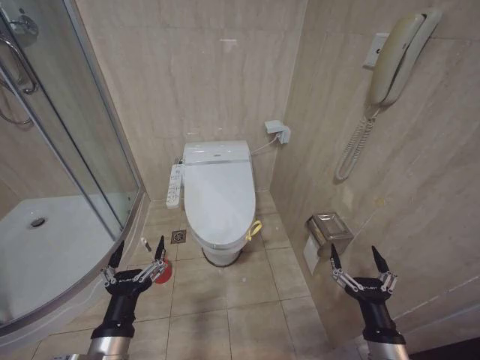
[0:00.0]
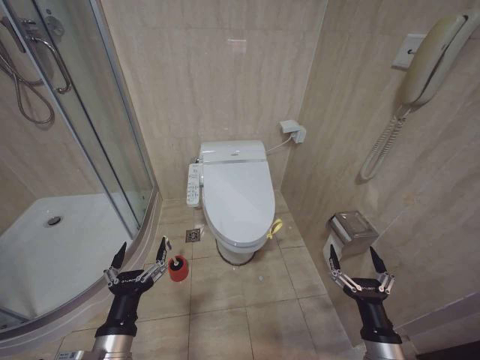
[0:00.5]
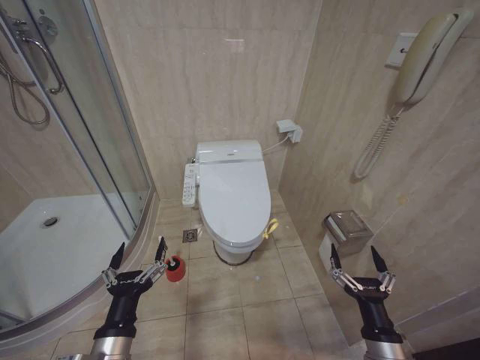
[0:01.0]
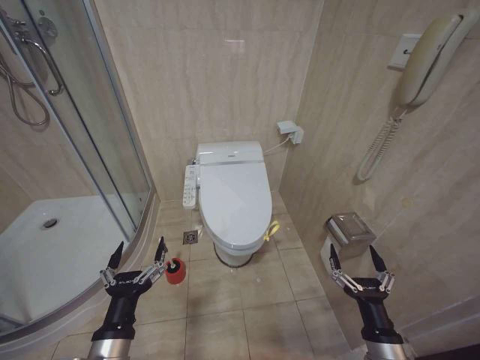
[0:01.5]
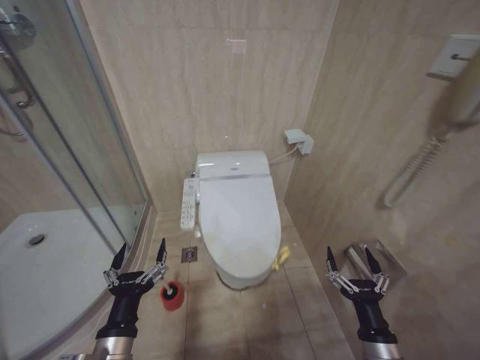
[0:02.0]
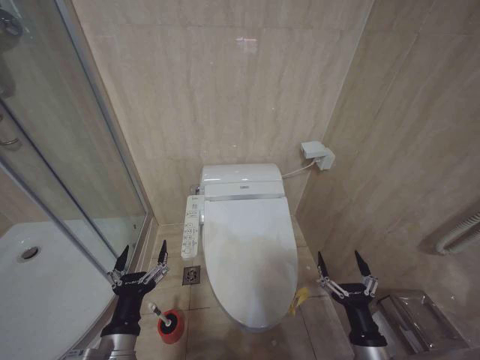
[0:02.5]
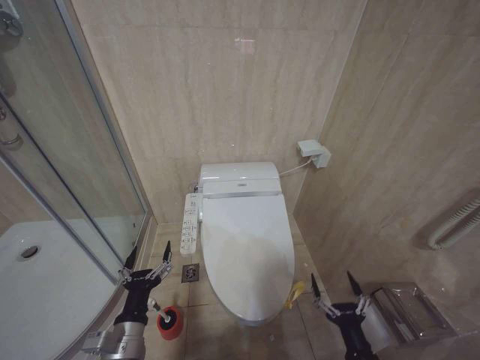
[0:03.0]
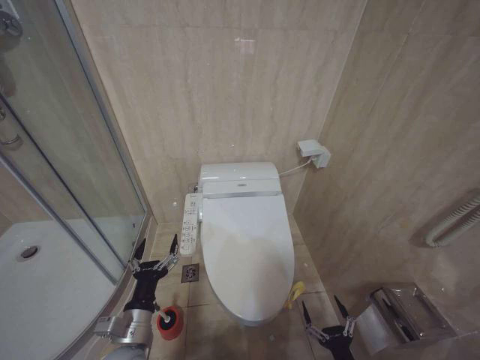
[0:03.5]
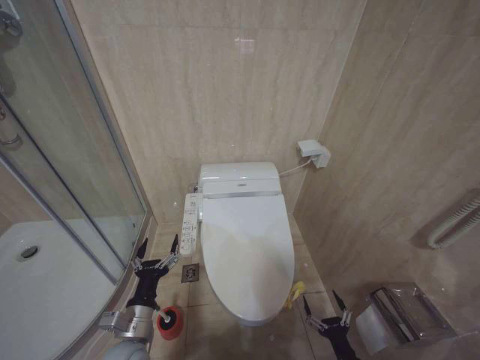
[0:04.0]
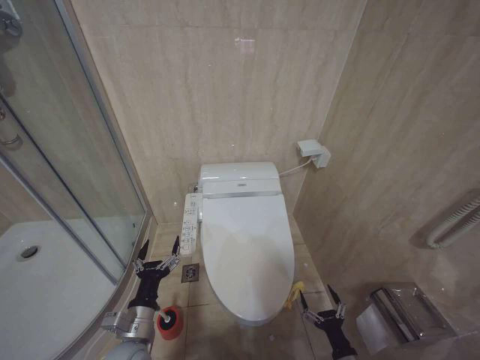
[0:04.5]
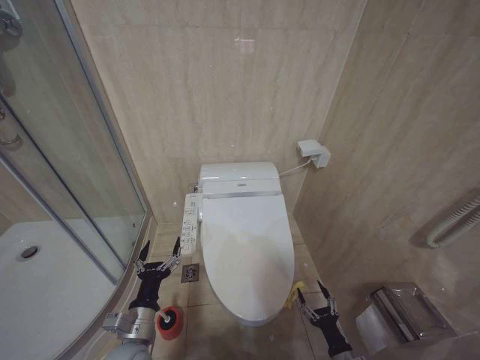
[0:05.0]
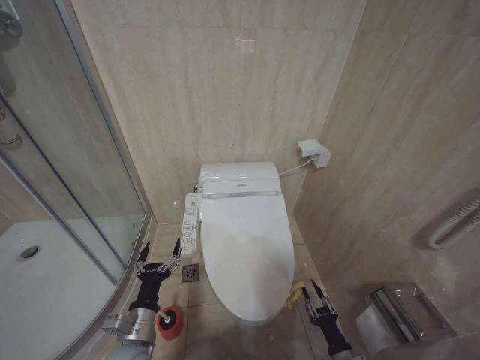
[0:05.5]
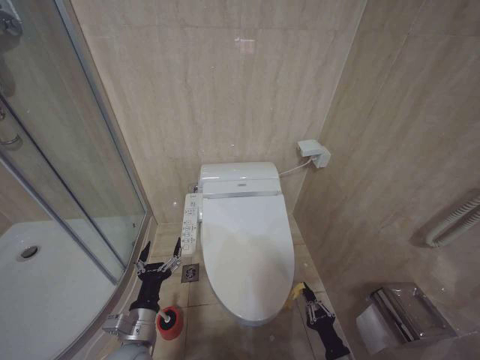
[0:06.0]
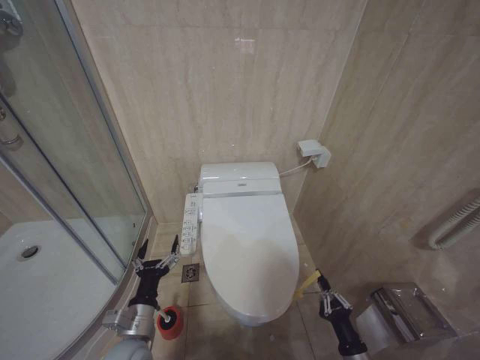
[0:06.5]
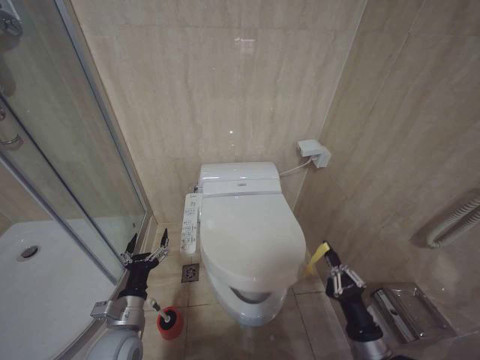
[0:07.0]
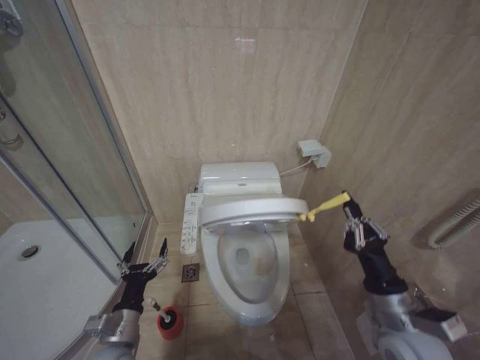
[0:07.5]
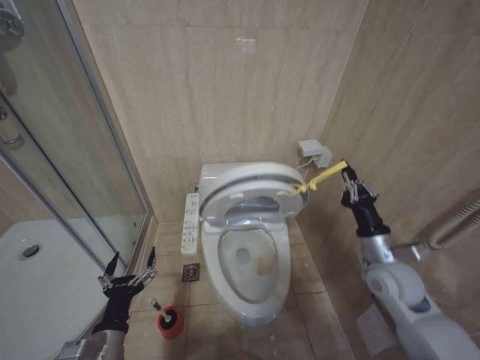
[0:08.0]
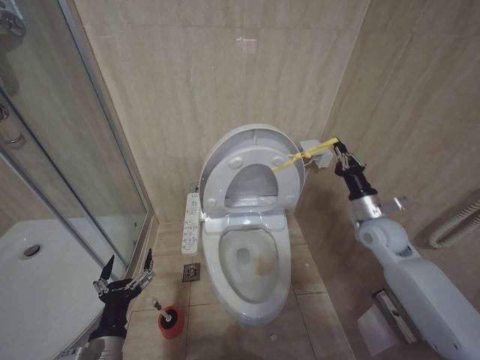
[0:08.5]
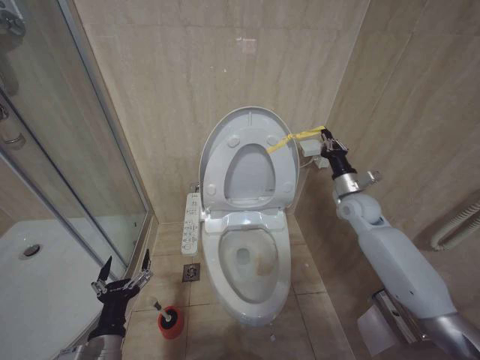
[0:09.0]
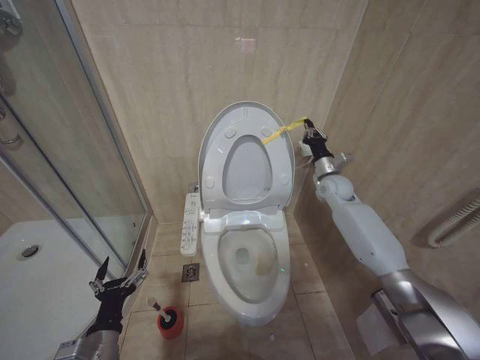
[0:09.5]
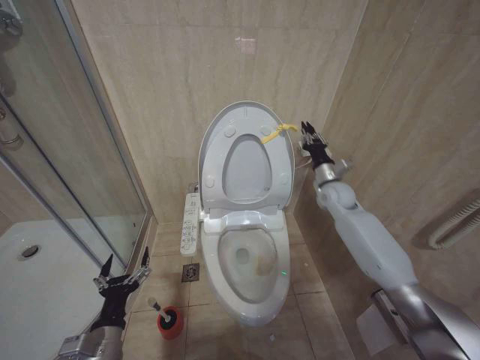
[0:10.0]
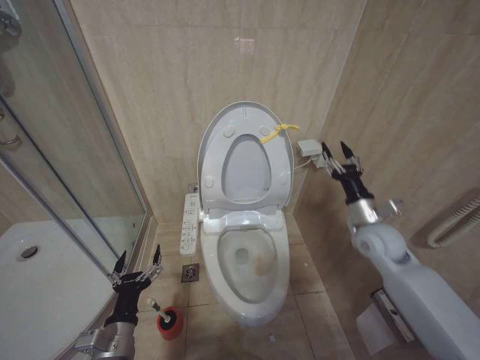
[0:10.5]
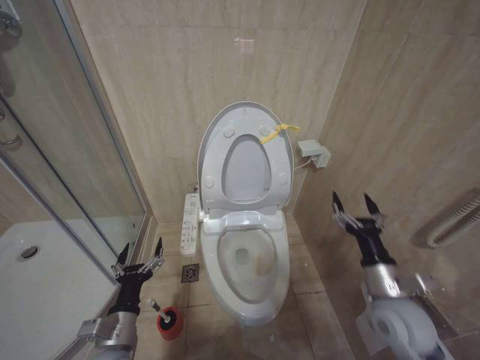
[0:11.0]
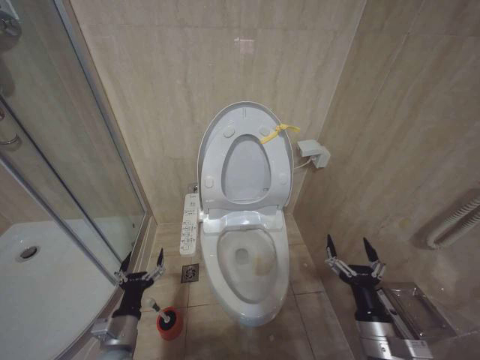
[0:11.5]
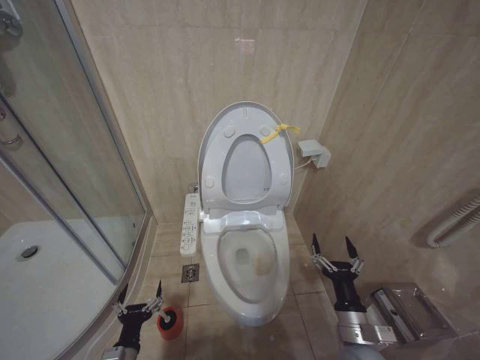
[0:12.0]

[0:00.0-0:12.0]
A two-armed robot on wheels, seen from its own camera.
Task of the whole recording: Open the toilet lid, clean the toilet bowl with a toilet brush, close the toilet lid, and flush.
0:02.0 to 0:04.0: The right gripper travels downward by about 20 cm. Meanwhile the left gripper heads forward and downward, covering approximately 10 cm.
0:04.0 to 0:06.0: The right gripper closes.
0:06.0 to 0:08.0: The right gripper goes some 35 cm upward and forward. Meanwhile the left gripper moves approximately 5 cm.
0:08.0 to 0:10.0: The right gripper travels forward by roughly 25 cm.
0:10.0 to 0:12.0: The left gripper heads downward, covering approximately 10 cm. Meanwhile the right gripper moves backward and downward, about 40 cm, and opens up.

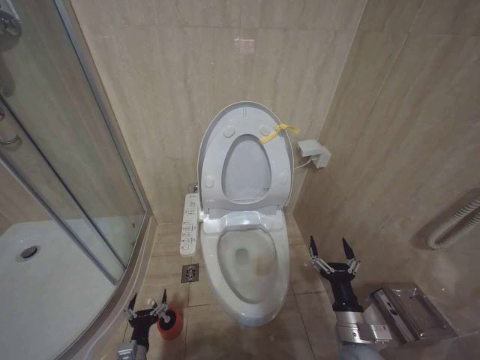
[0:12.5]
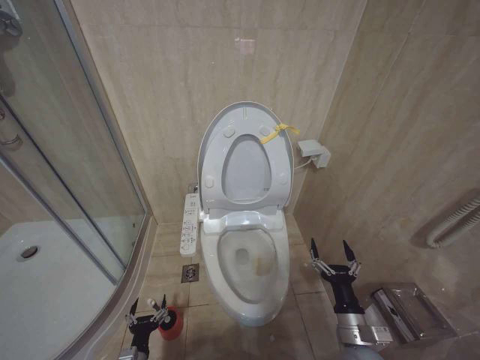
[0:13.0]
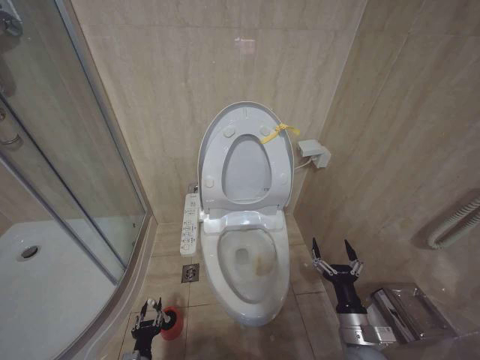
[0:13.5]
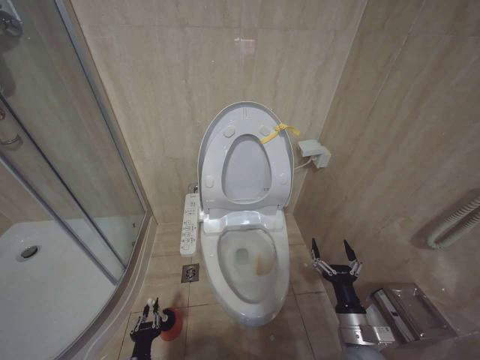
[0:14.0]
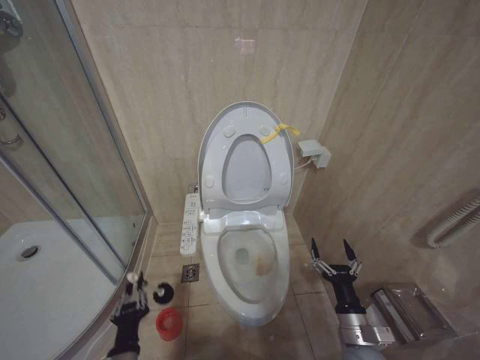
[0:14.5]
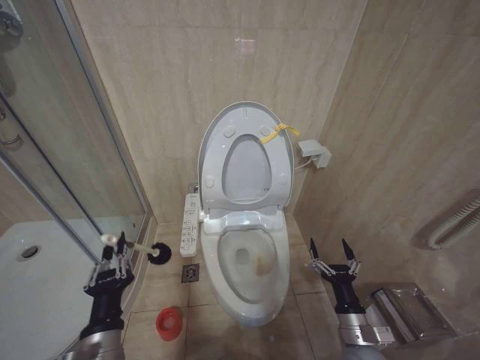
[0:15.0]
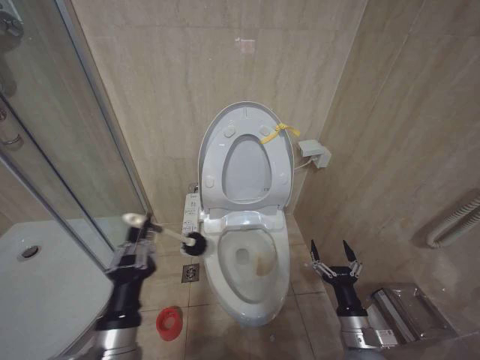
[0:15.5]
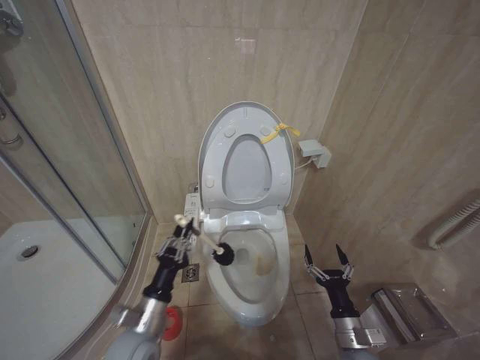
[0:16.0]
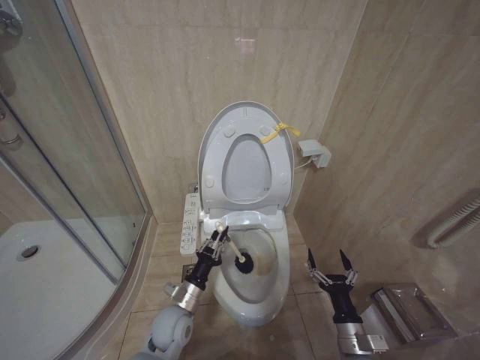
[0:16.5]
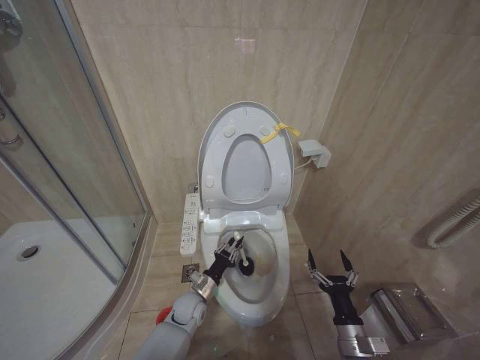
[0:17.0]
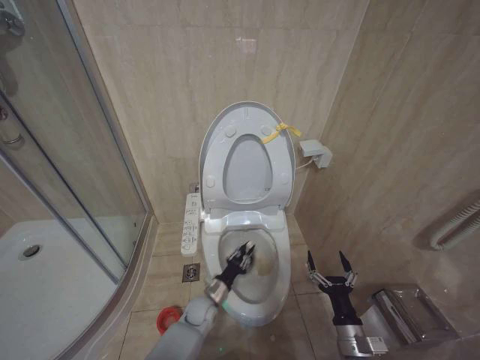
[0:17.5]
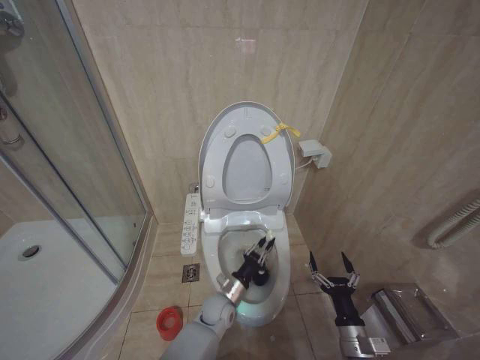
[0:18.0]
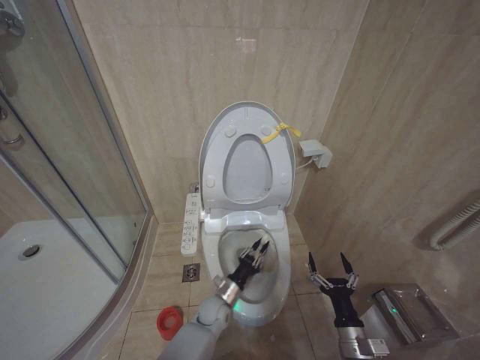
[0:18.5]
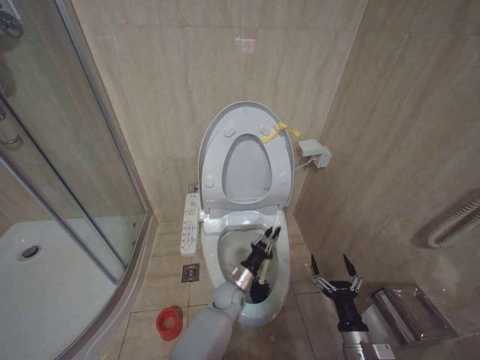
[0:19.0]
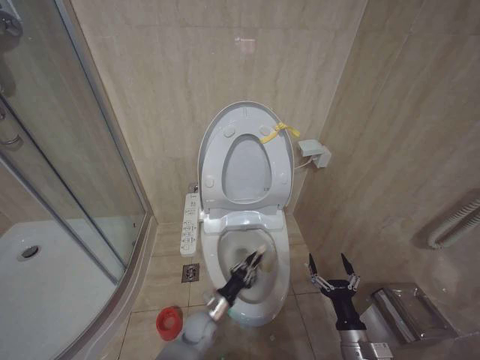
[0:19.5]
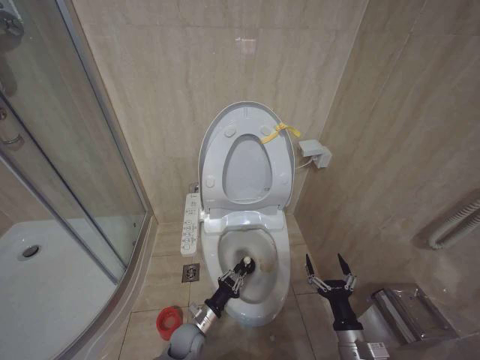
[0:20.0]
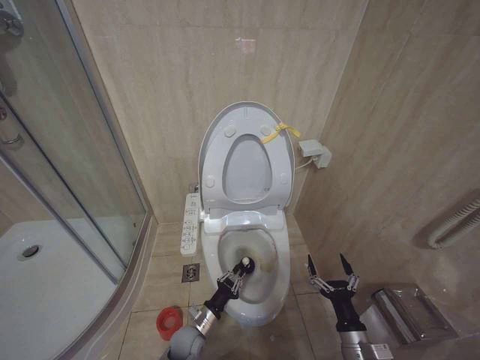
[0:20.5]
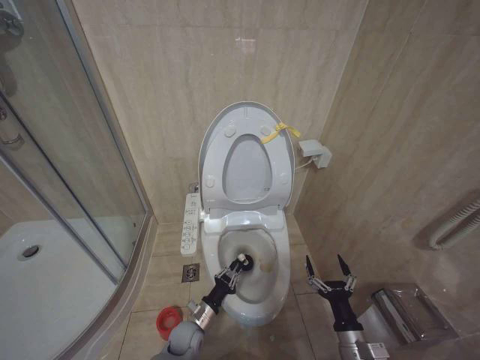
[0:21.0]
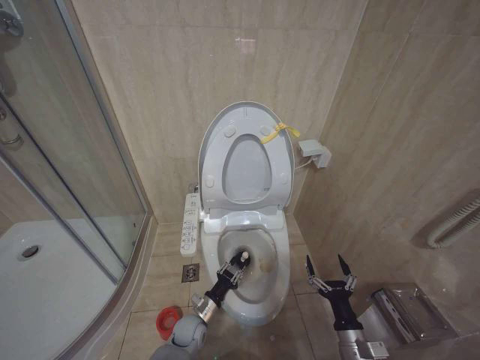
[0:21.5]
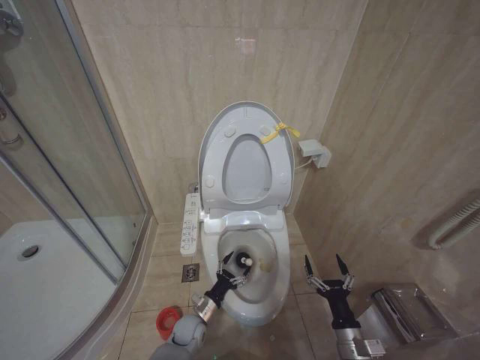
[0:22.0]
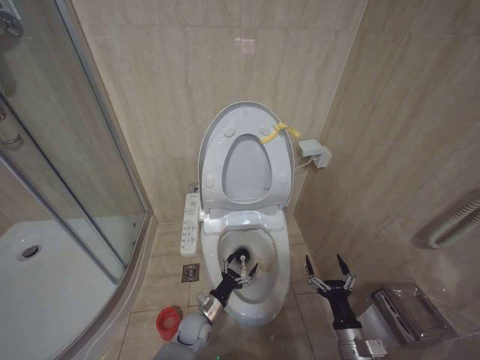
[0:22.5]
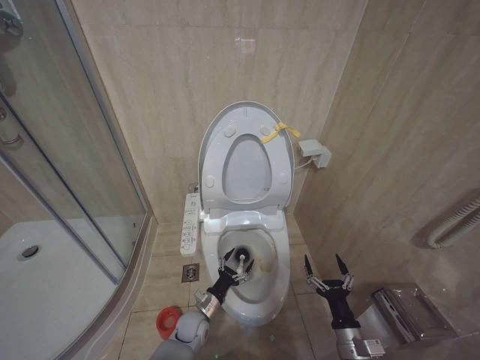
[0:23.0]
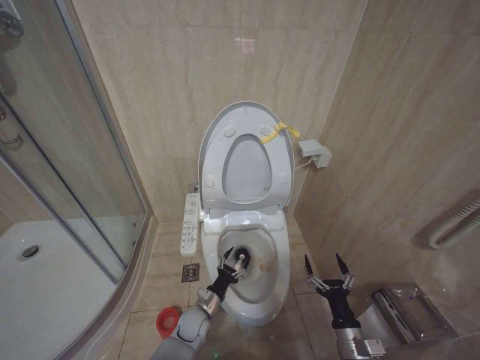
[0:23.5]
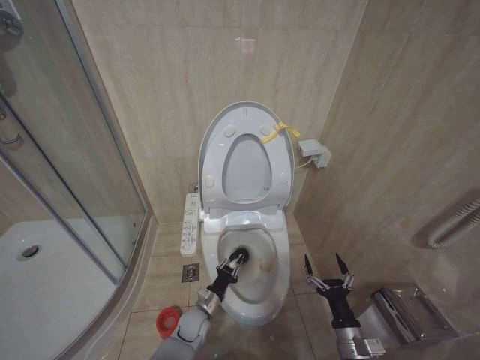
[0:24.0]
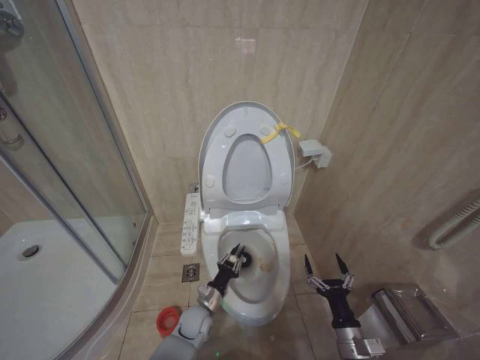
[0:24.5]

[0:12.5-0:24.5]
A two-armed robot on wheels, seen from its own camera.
Task of the whole recording: Open the toilet lid, clean the toilet bowl with a toilet brush, close the toilet lid, and flush.
0:12.5 to 0:14.5: The left gripper goes approximately 10 cm upward and backward, and closes its fingers.
0:14.5 to 0:16.5: The left gripper goes some 15 cm forward and to the right, and goes upward and returns, roughly 20 cm each way.
0:16.5 to 0:18.5: The left gripper swings up and down, roughly 15 cm each way, with 2 reversals.
0:18.5 to 0:20.5: The left gripper goes about 10 cm to the left and backward.
0:20.5 to 0:22.5: The left gripper opens its fingers.
0:22.5 to 0:24.5: The left gripper closes.

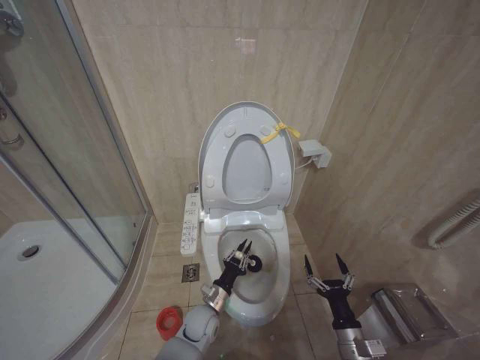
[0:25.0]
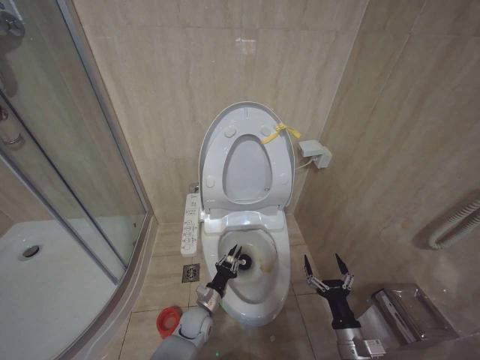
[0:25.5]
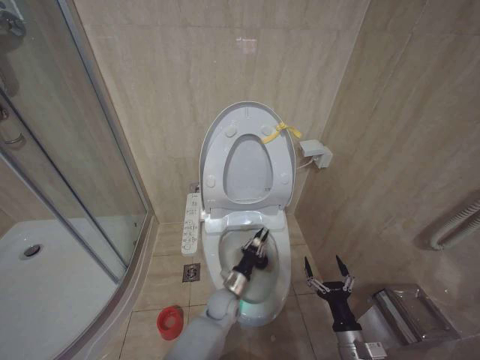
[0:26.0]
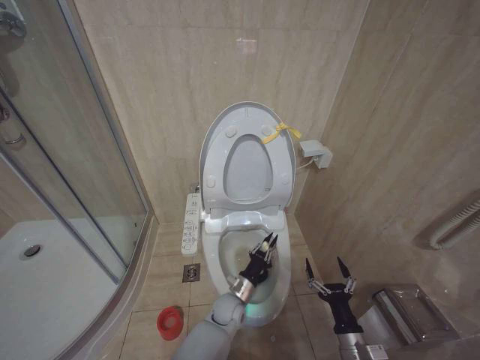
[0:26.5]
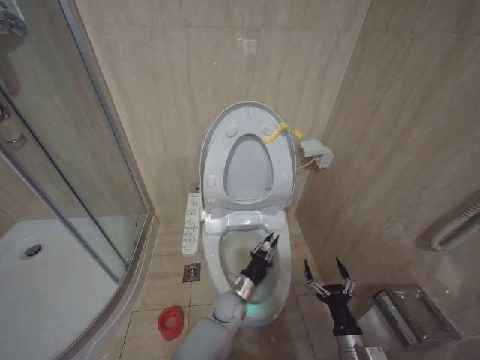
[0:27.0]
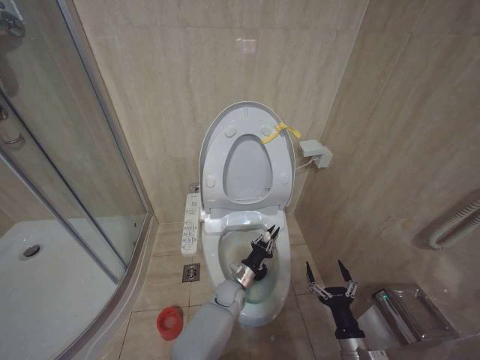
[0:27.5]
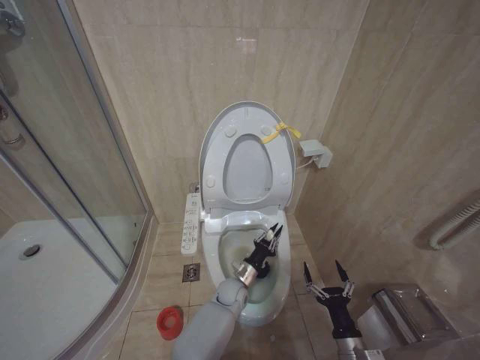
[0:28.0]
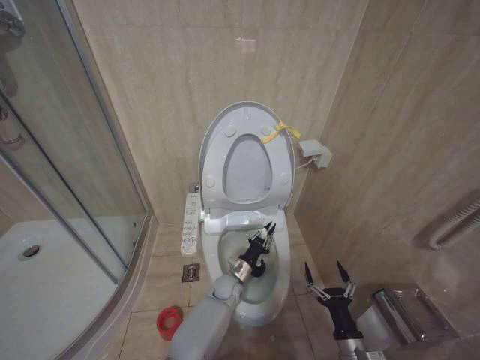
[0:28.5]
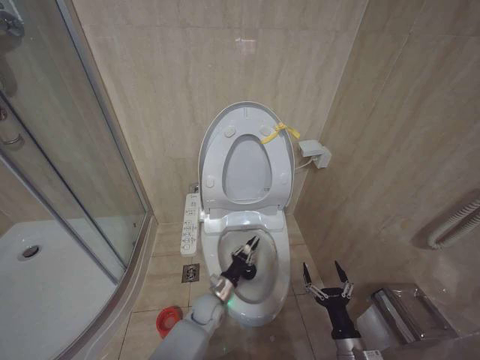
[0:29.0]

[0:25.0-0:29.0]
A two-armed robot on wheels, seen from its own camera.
Task of the whole recording: Open the toilet lid, clean the toilet bowl with a toilet brush, close the toilet lid, and flush.
0:25.0 to 0:27.0: The left gripper is displaced to the right by some 10 cm.
0:27.0 to 0:29.0: The left gripper heads to the left, covering roughly 5 cm.
